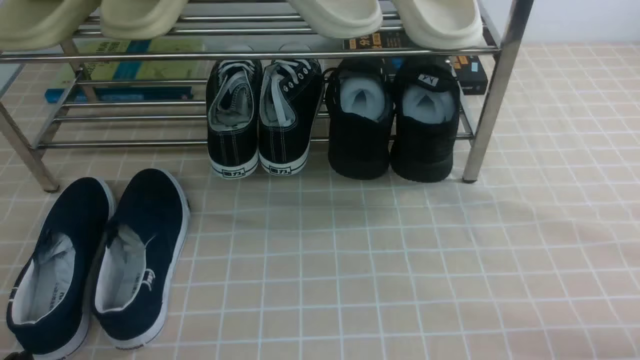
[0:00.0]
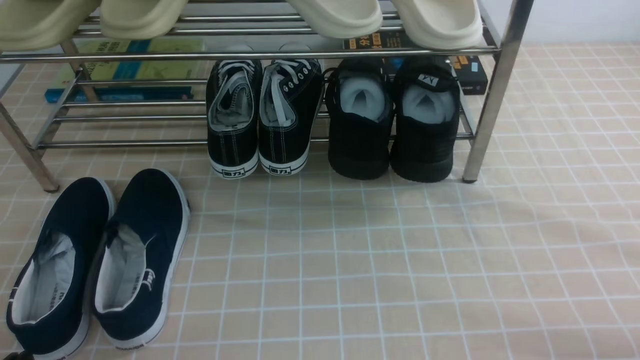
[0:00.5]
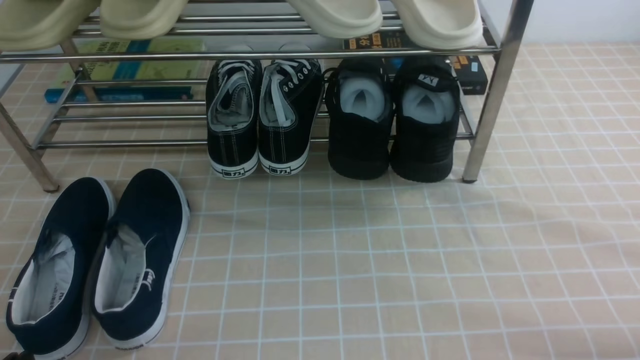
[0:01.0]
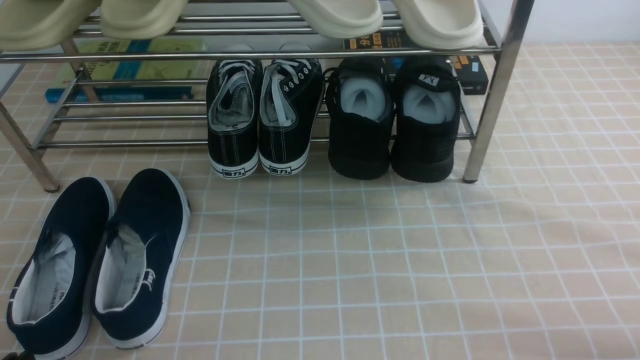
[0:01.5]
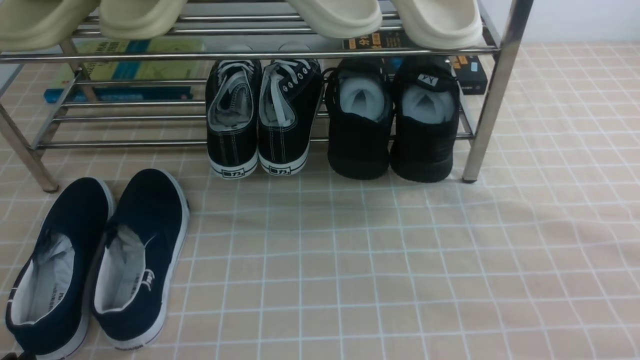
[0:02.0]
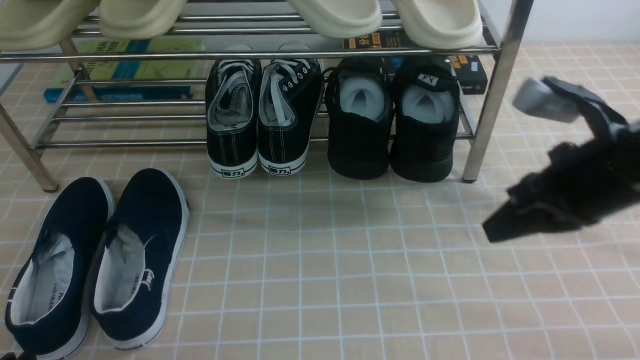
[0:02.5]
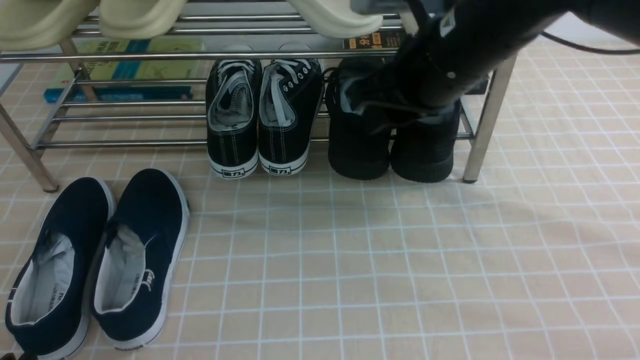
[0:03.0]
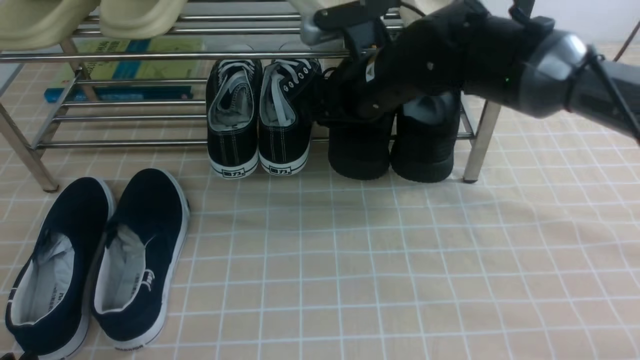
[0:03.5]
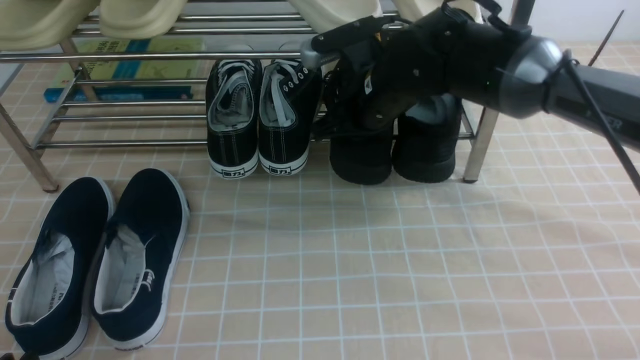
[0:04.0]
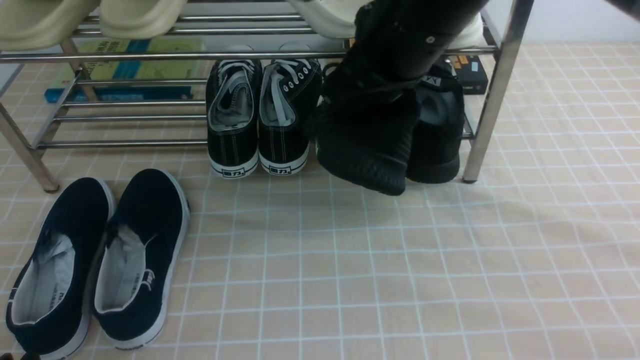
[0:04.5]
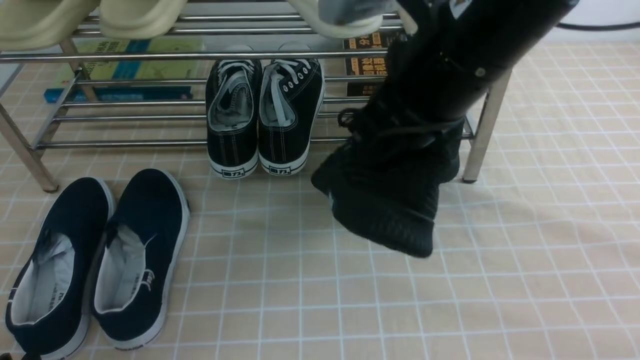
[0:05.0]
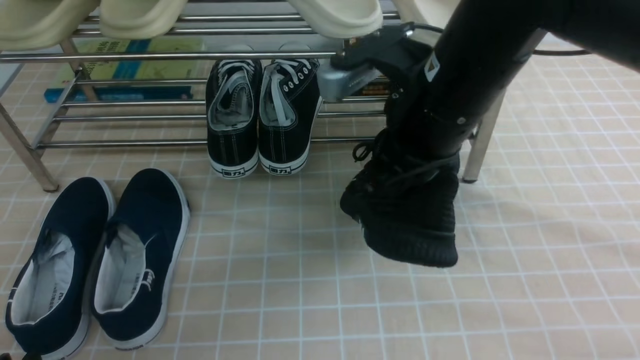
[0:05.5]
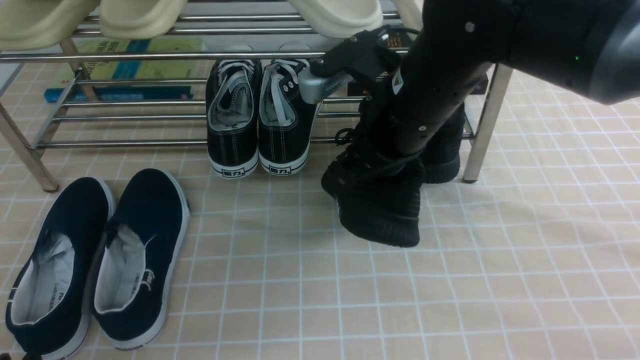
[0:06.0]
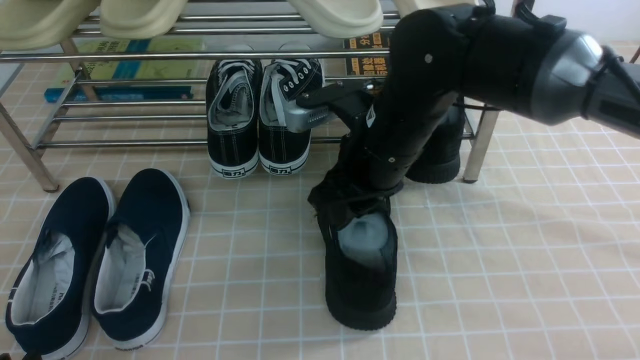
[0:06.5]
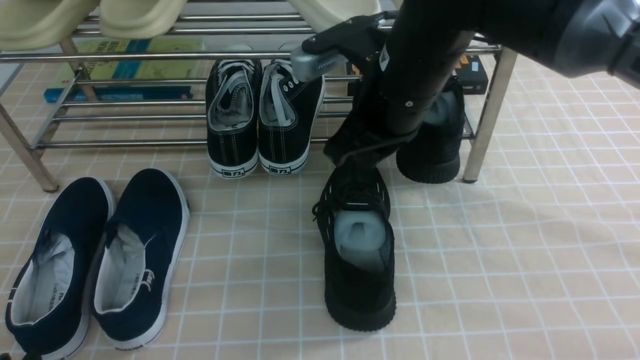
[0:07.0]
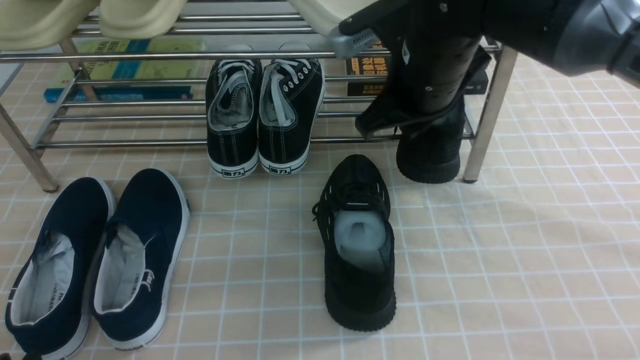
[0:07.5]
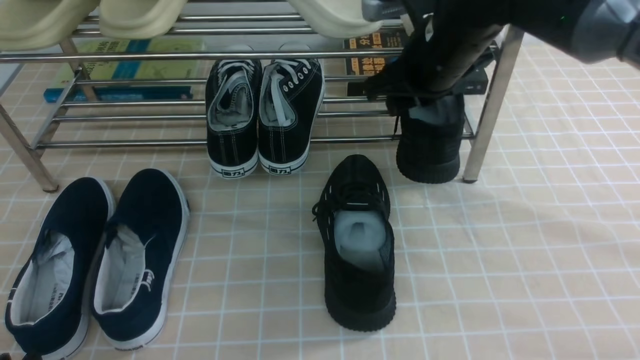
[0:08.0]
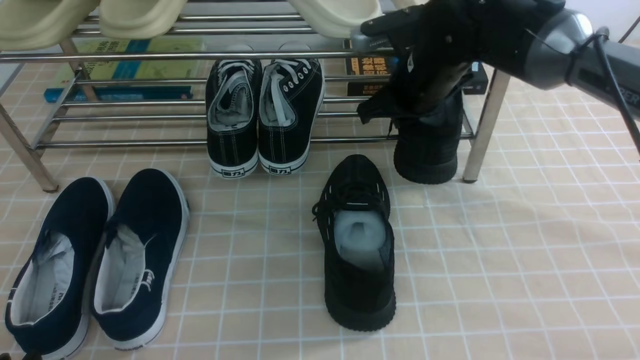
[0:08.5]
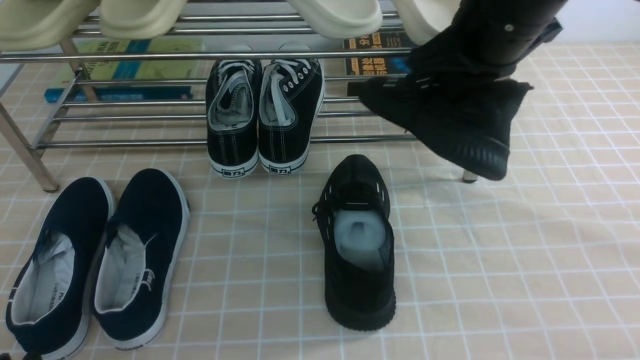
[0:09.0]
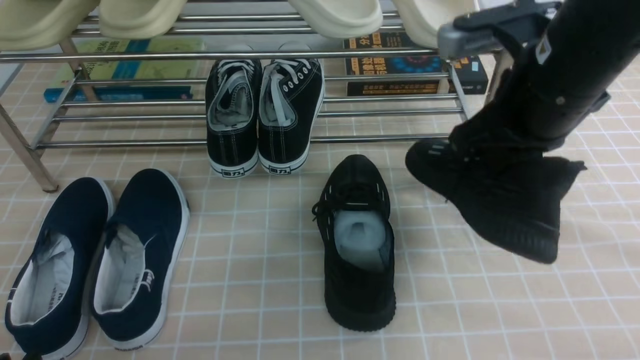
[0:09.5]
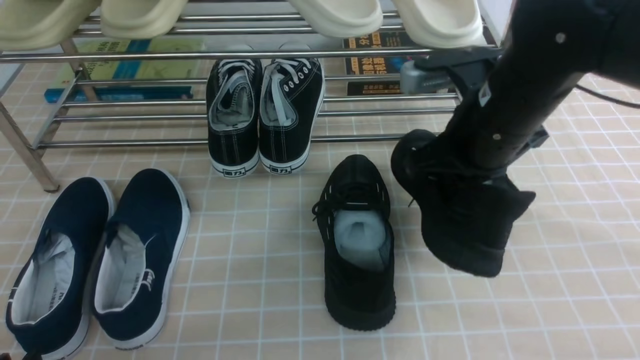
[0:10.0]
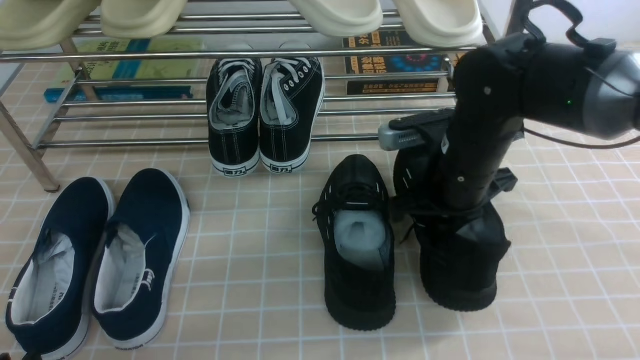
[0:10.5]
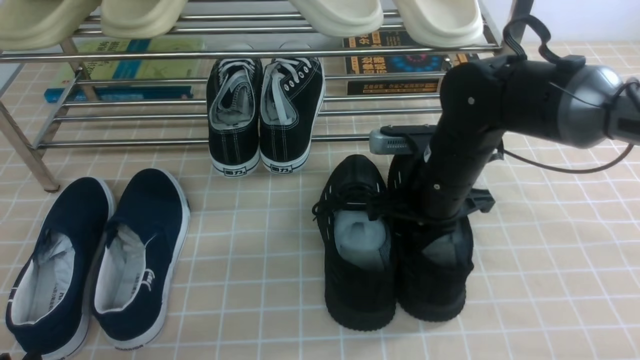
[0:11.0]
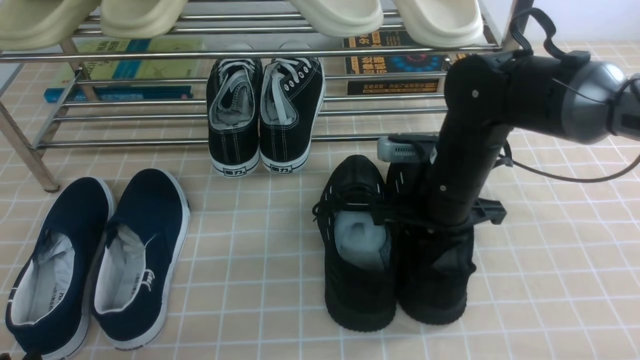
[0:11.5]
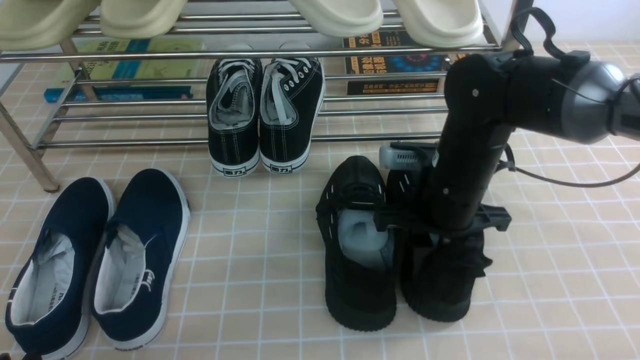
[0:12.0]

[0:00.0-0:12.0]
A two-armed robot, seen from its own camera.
Step, 0:00.0 to 0:03.5: use the right arm to clamp a shoe on the right side of the shoe rack.
Step, 0:04.0 to 0:06.5: use the right arm to take out the clamped shoe from the shoe rack and put it down.
Step, 0:07.0 to 0:08.0: use the right arm to clamp a shoe on the right side of the shoe rack.
0:02.0 to 0:04.0: The right gripper heads forward and to the left, covering approximately 35 cm, and opens, then closes once more, while the left gripper opens.
0:04.0 to 0:06.0: The right gripper travels backward by roughly 5 cm.
0:06.0 to 0:08.0: The right gripper is displaced forward by some 10 cm, and opens up.
0:08.0 to 0:10.0: The right gripper is displaced backward by roughly 10 cm, and closes its fingers.
0:10.0 to 0:12.0: The right gripper is displaced downward by about 5 cm, and opens up.

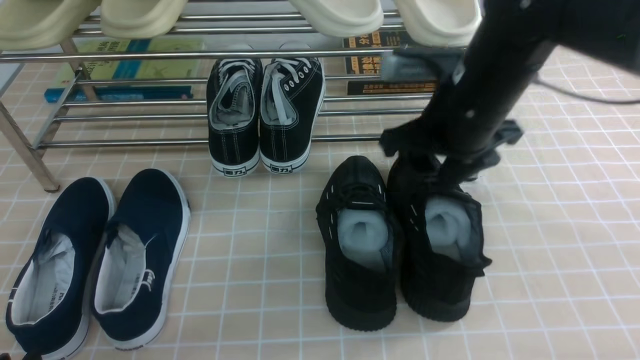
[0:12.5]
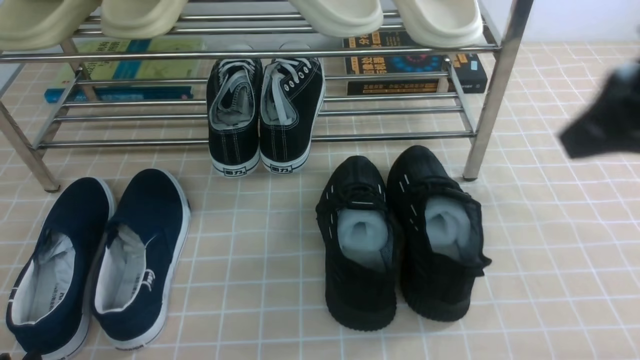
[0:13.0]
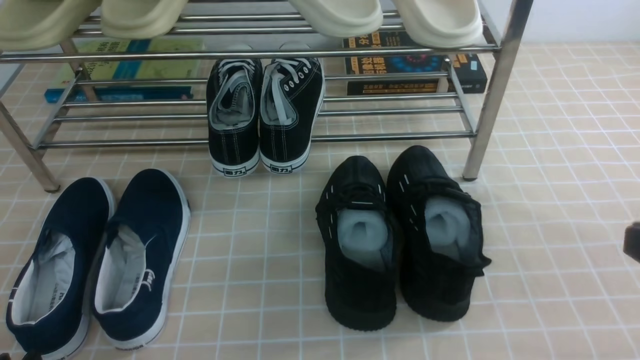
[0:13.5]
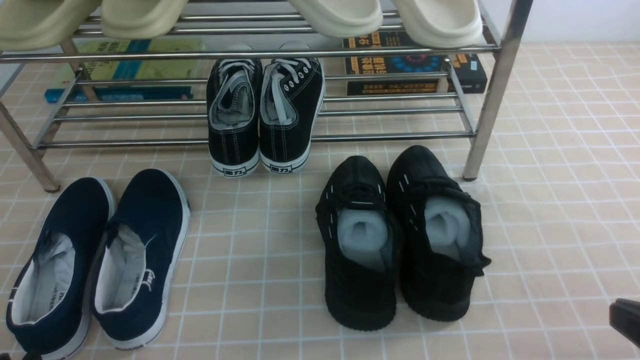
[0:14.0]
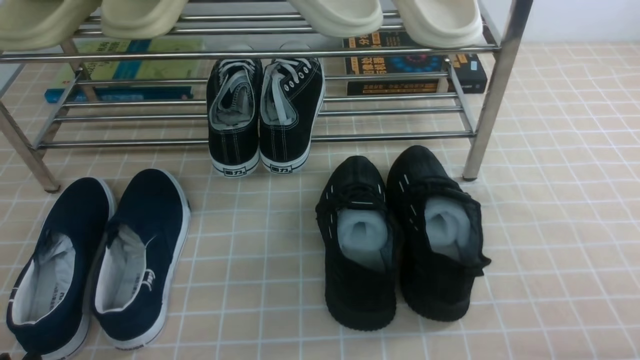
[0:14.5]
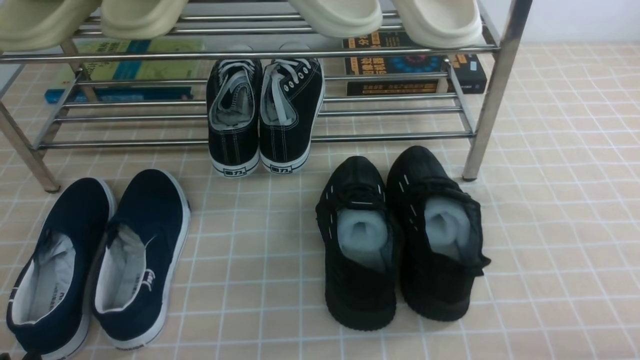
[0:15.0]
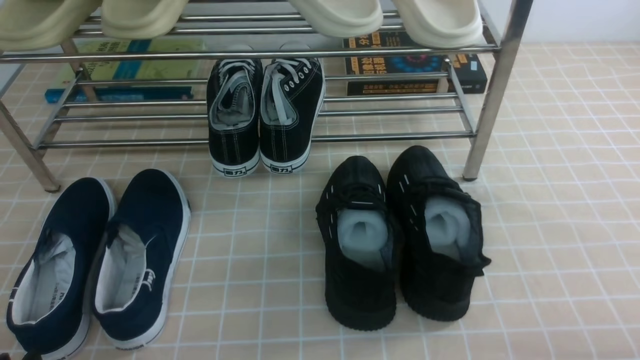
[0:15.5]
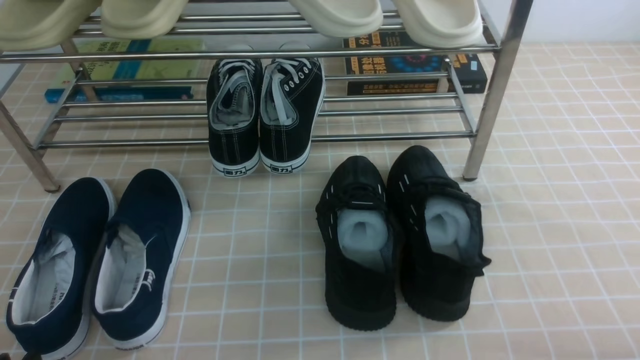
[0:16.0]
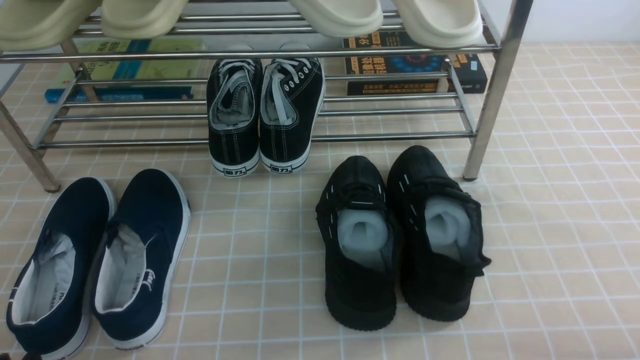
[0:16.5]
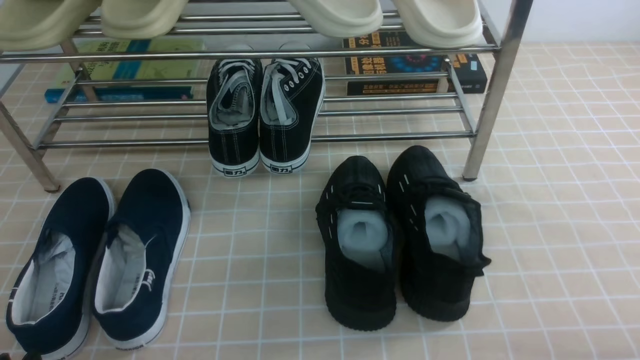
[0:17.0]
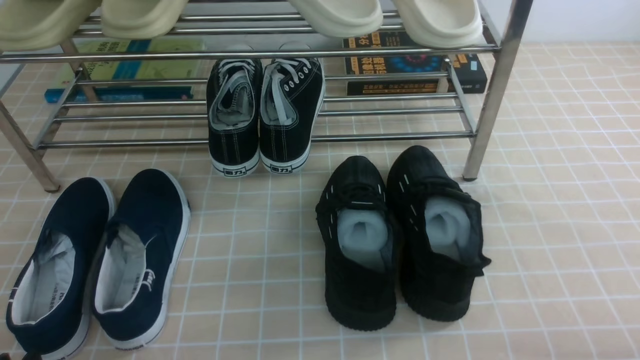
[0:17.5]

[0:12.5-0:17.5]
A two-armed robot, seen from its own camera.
0:12.5 to 0:15.0: The right gripper travels backward, to the right and downward by some 35 cm, and closes up.
0:15.0 to 0:17.5: Both grippers stay about where they are.

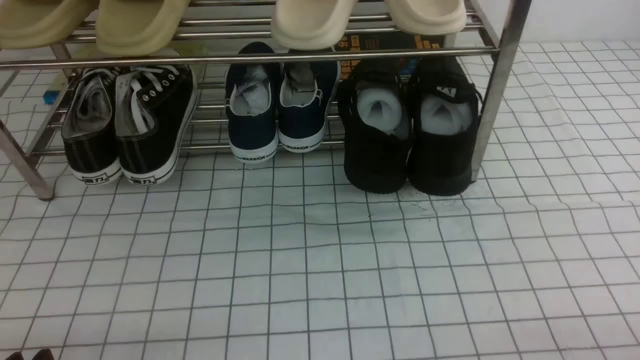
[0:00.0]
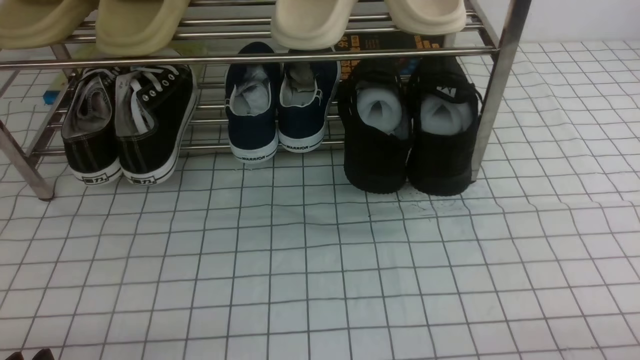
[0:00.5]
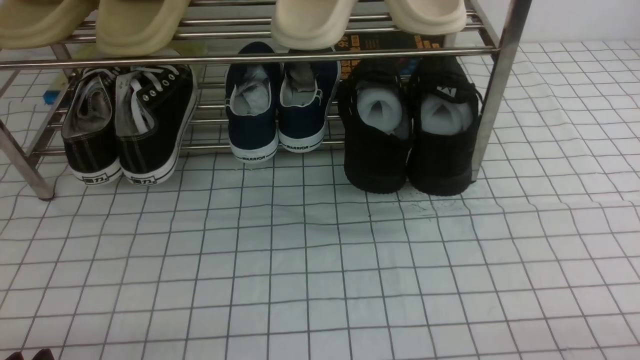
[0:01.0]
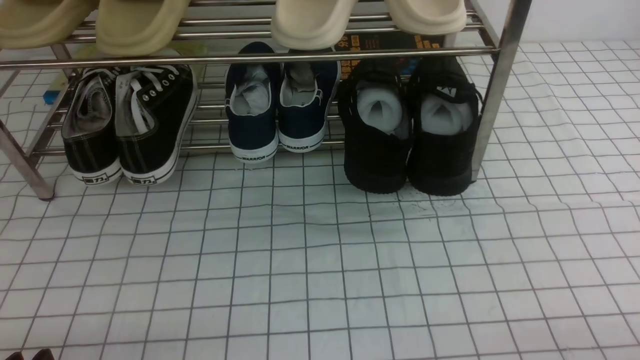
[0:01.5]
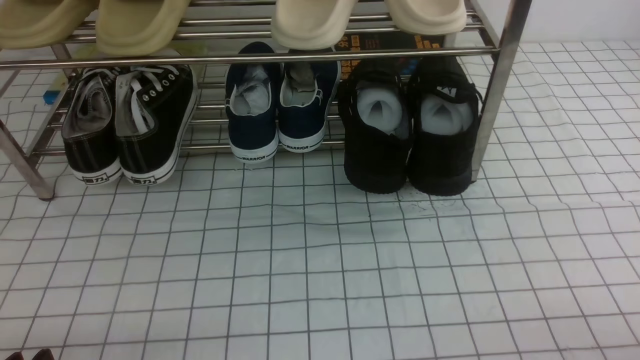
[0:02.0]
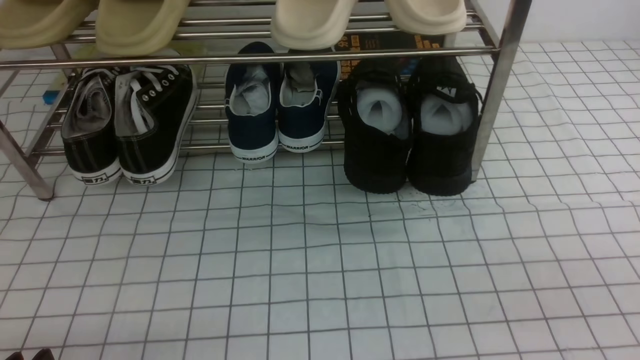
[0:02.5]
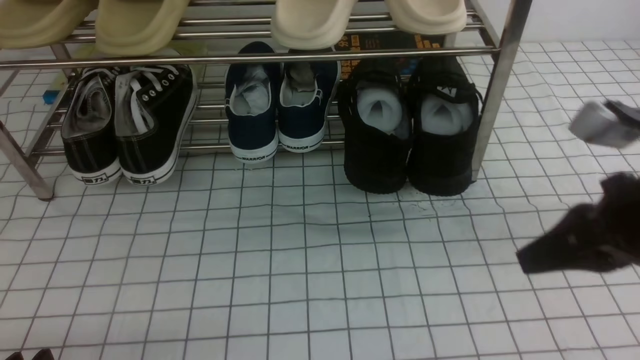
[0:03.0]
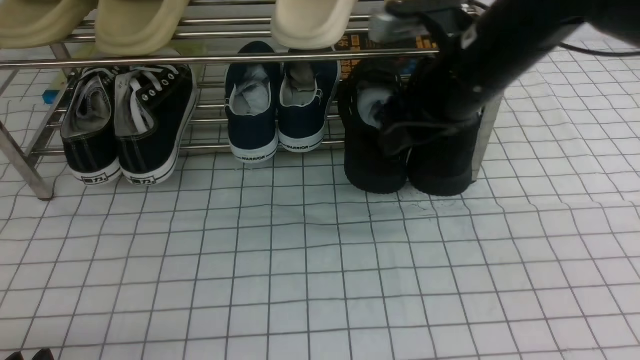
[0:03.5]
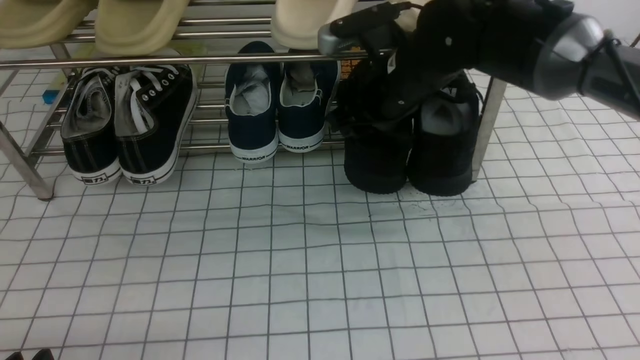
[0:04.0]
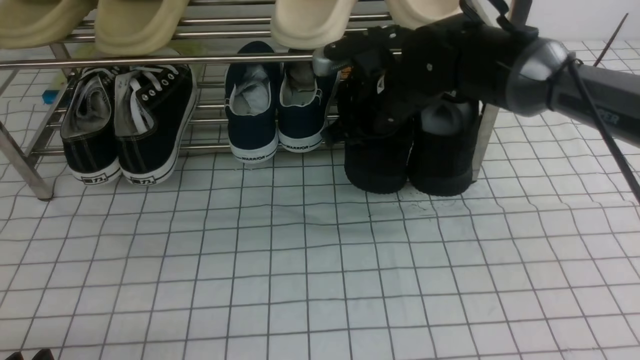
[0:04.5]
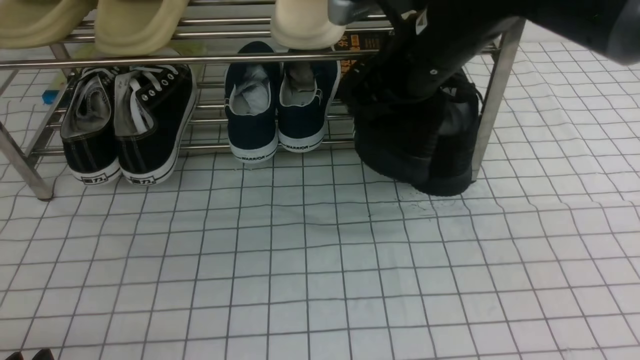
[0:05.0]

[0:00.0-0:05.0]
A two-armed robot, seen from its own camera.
Step, 0:00.0 to 0:04.0: use the right arm to clamp a shoe on the right side of the shoe rack.
0:02.5 to 0:05.0: The right gripper heads forward and to the left, covering roughly 35 cm, and opens, then closes once more.
